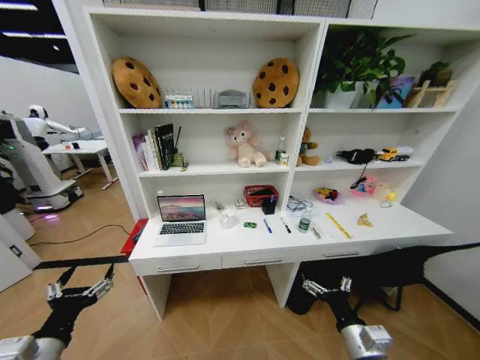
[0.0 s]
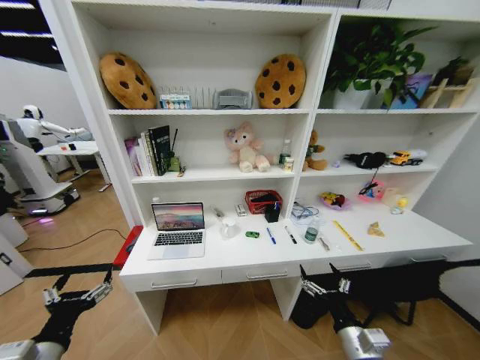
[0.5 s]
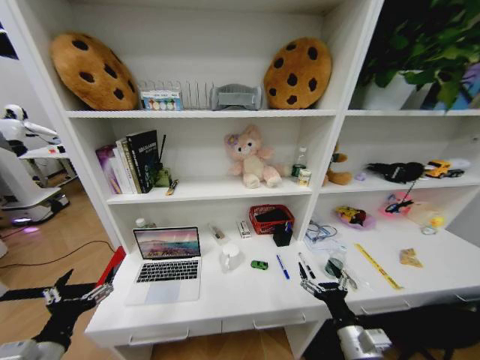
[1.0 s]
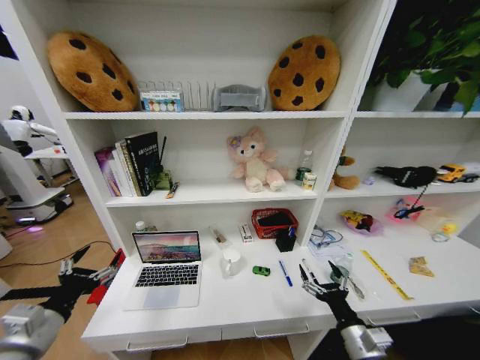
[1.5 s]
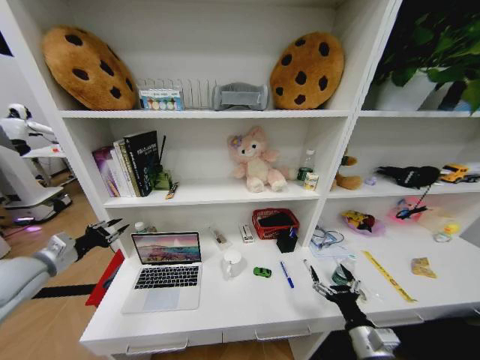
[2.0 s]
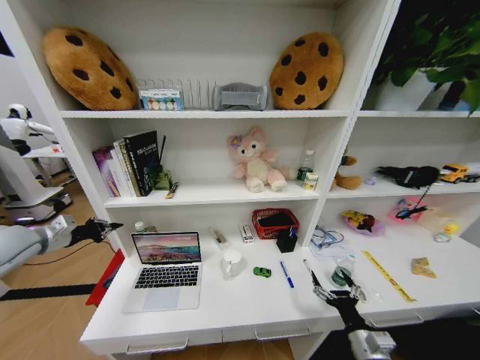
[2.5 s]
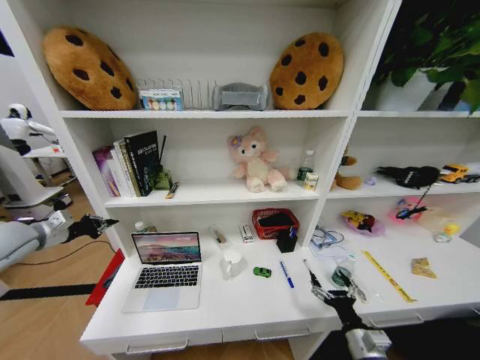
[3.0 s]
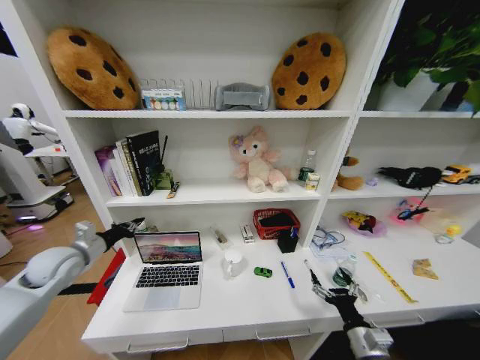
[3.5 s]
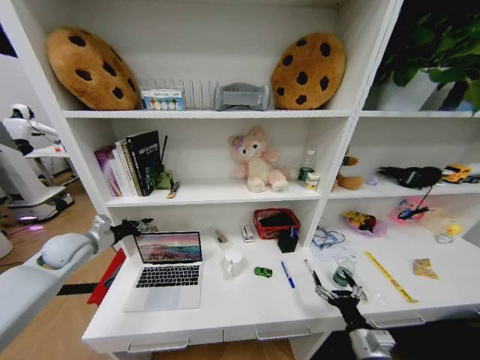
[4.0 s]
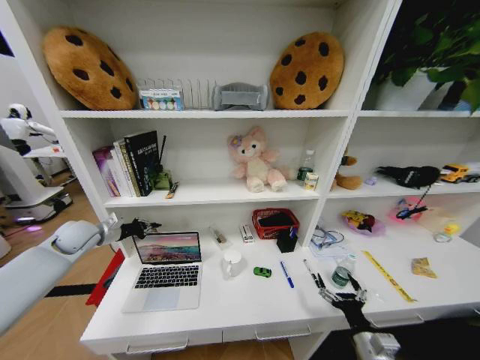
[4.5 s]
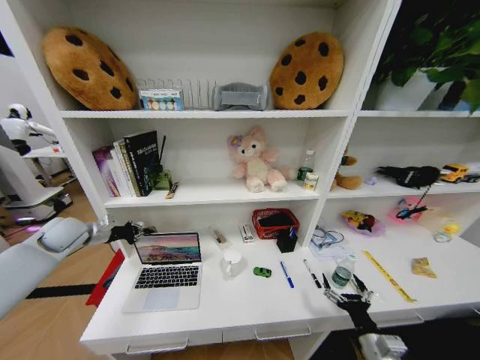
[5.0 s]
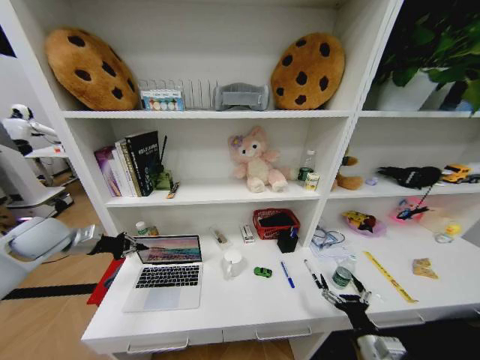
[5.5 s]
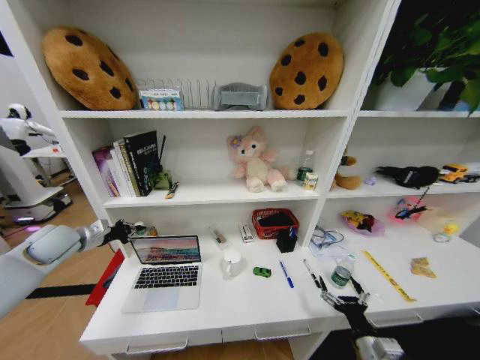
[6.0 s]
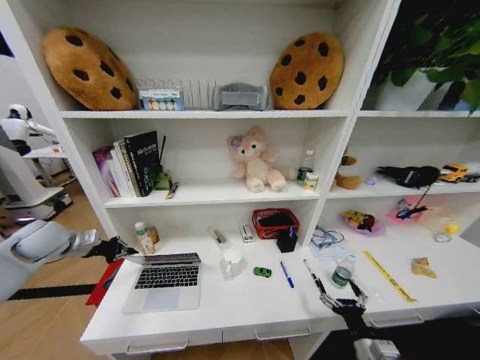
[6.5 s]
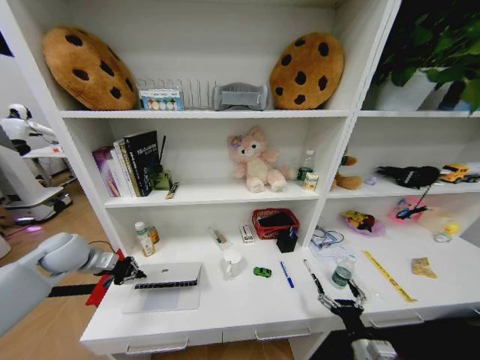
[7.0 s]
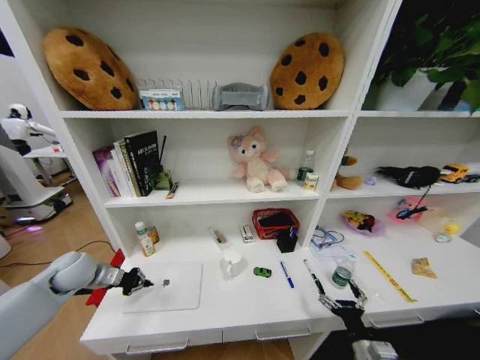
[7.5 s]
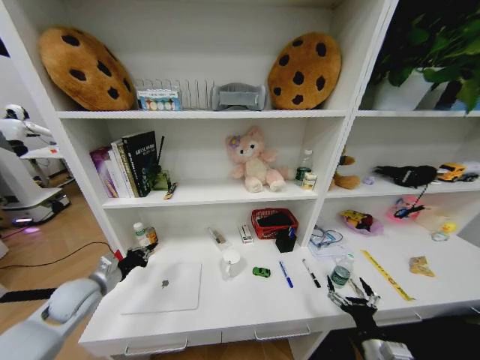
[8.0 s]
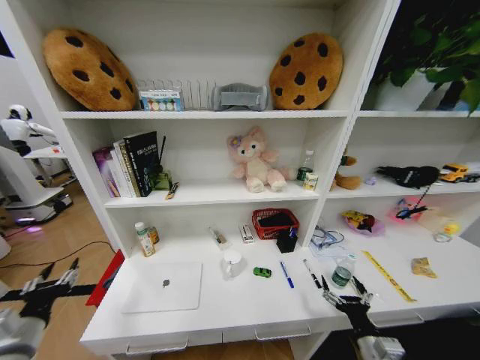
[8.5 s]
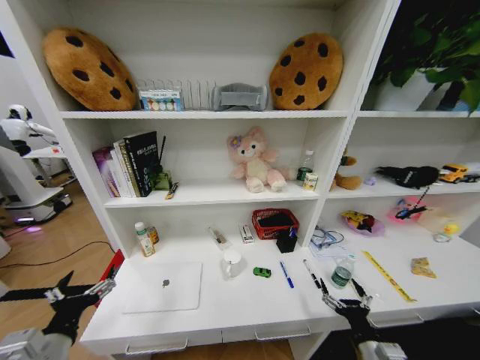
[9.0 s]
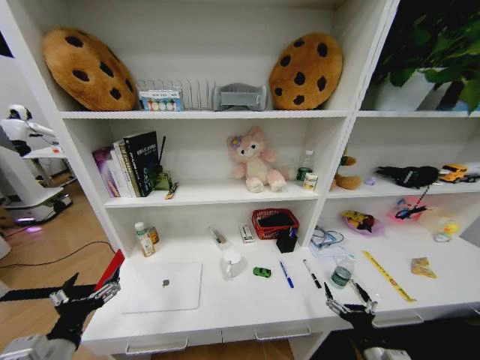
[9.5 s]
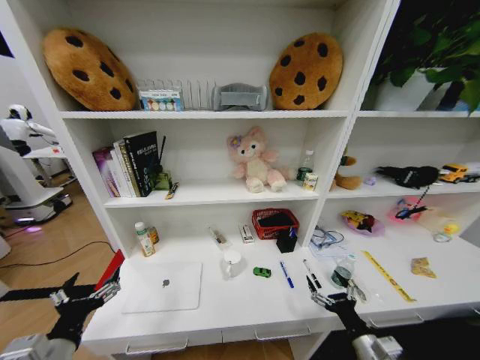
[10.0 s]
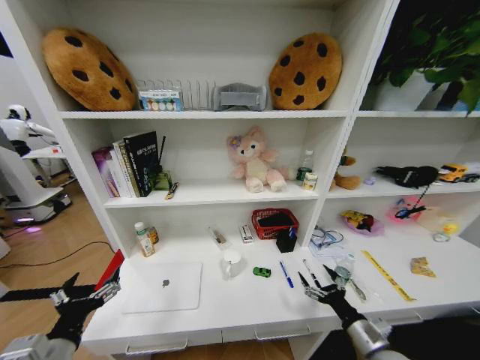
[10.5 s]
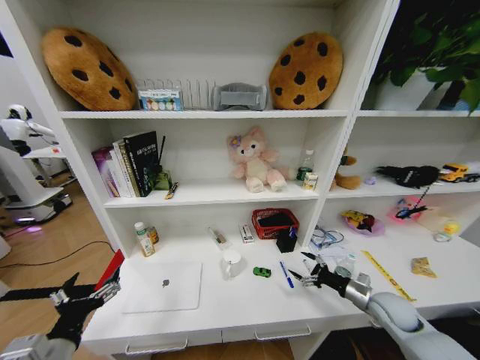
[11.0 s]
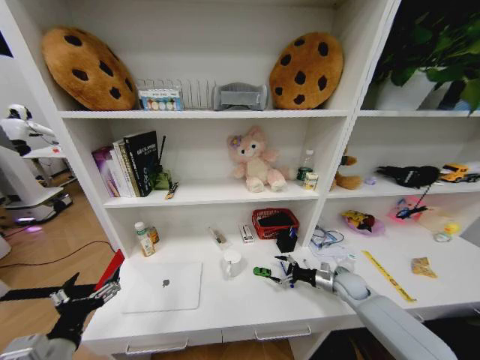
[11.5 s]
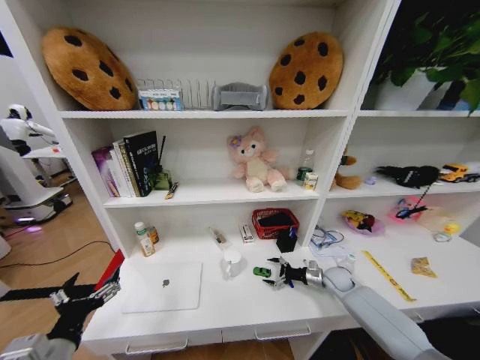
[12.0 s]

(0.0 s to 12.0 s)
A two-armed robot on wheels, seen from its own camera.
Task of the whole recording: Organize the objects on the table.
2.0 s - 4.0 s: The left gripper goes about 10 cm forward, and closes its fingers.
6.0 s - 8.0 s: The left gripper goes some 15 cm downward, backward and to the right.
8.0 s - 10.0 s: The left gripper goes roughly 20 cm backward and to the right, and opens.
10.0 s - 12.0 s: The right gripper shifts some 30 cm forward.

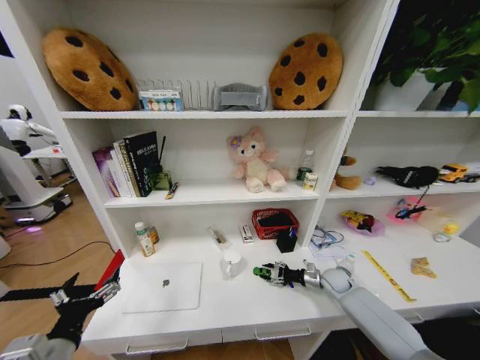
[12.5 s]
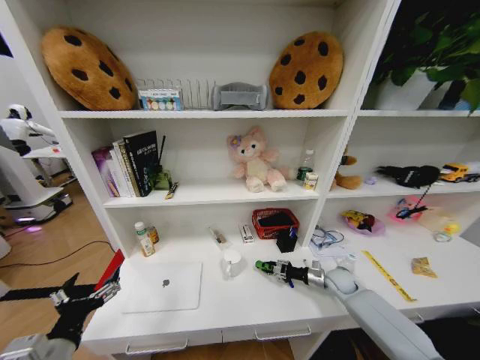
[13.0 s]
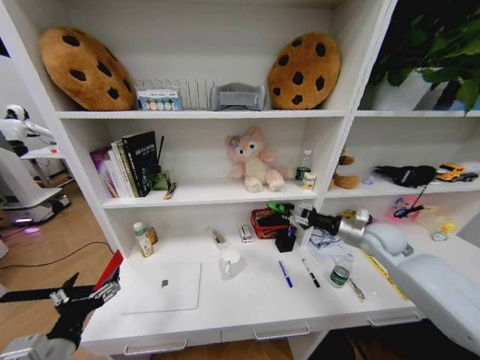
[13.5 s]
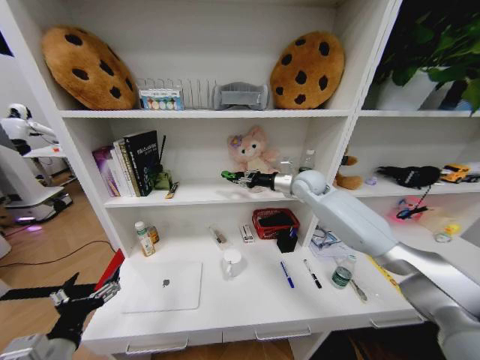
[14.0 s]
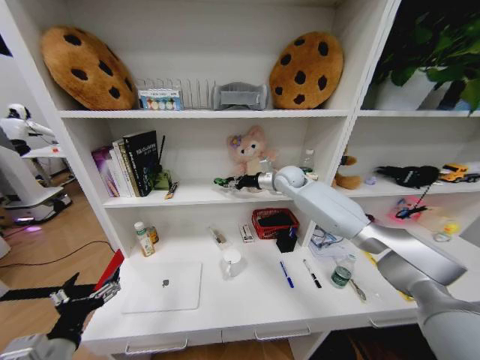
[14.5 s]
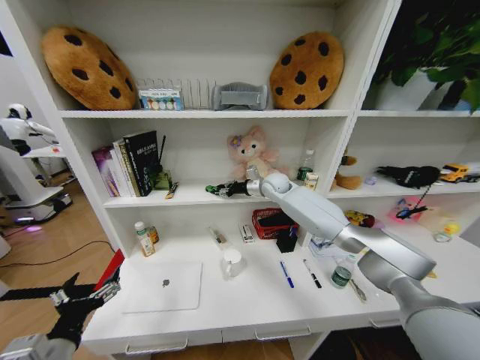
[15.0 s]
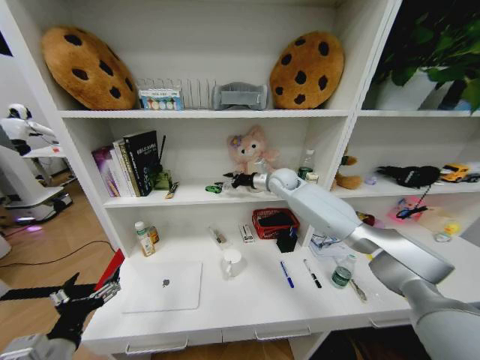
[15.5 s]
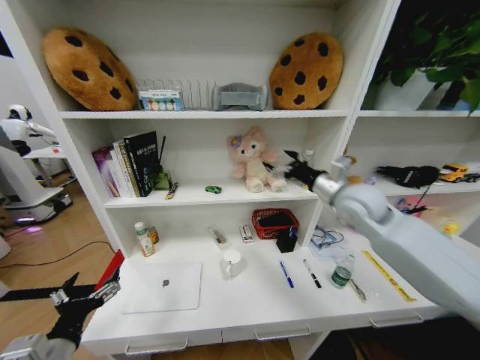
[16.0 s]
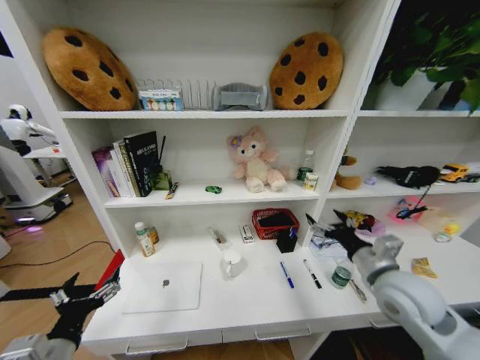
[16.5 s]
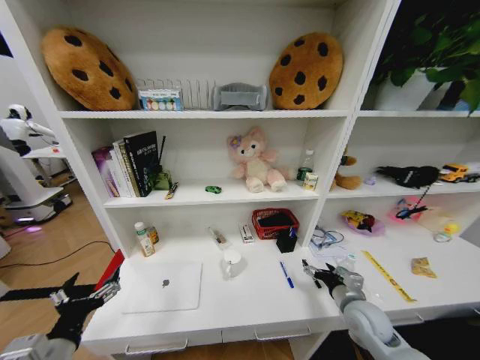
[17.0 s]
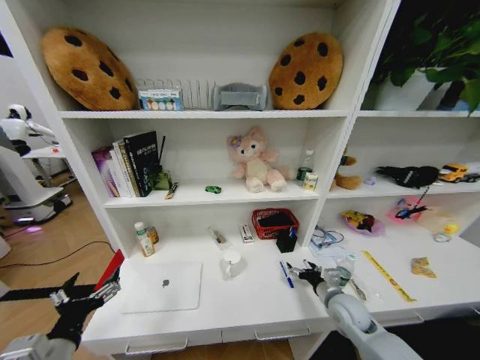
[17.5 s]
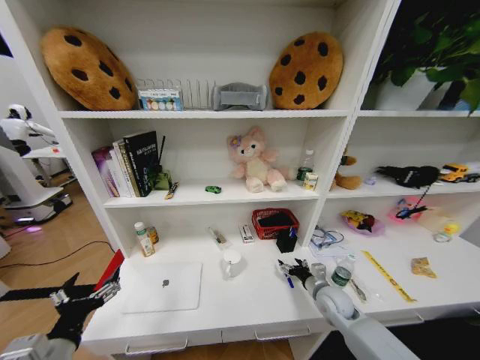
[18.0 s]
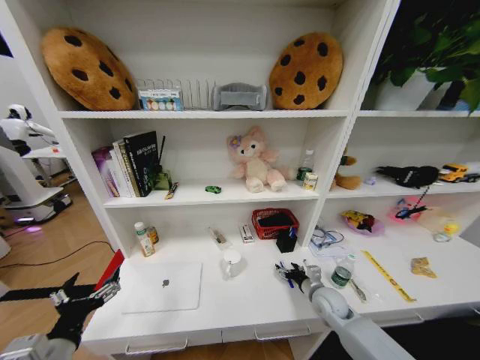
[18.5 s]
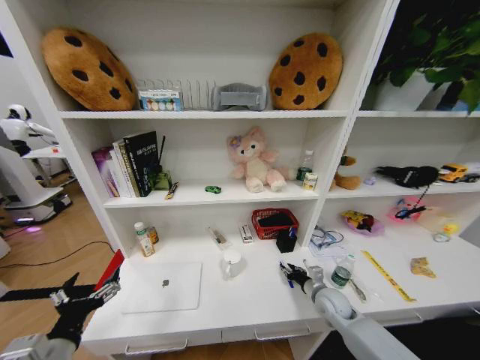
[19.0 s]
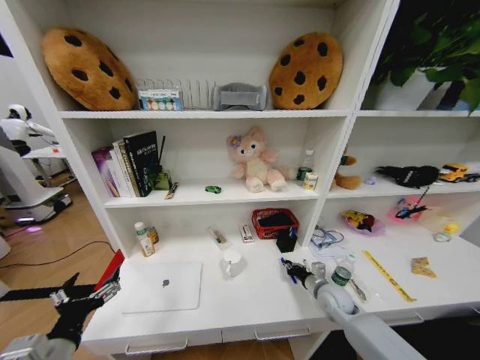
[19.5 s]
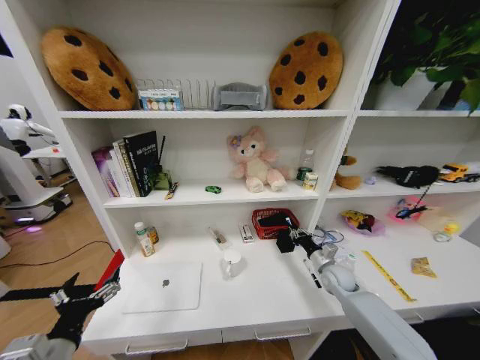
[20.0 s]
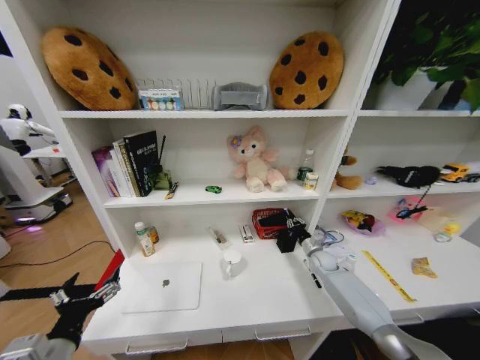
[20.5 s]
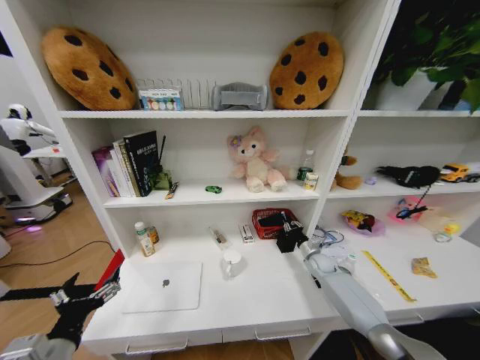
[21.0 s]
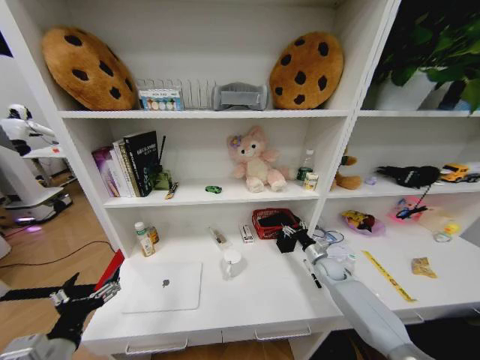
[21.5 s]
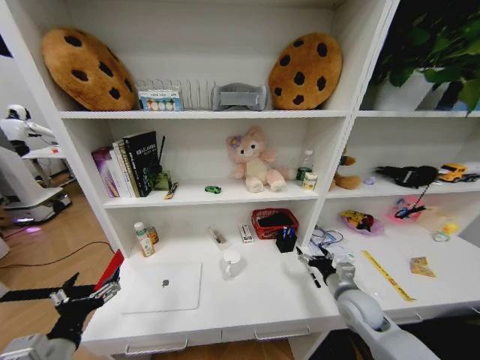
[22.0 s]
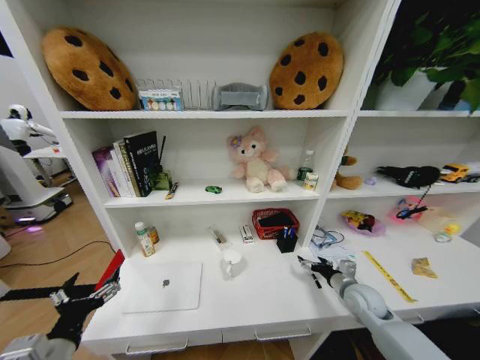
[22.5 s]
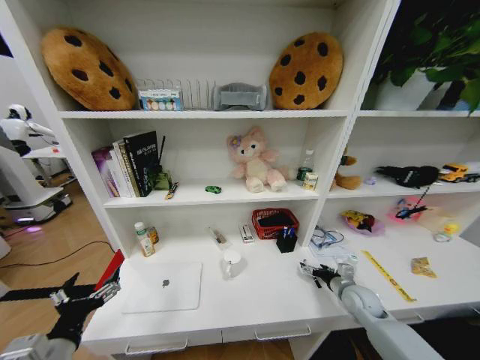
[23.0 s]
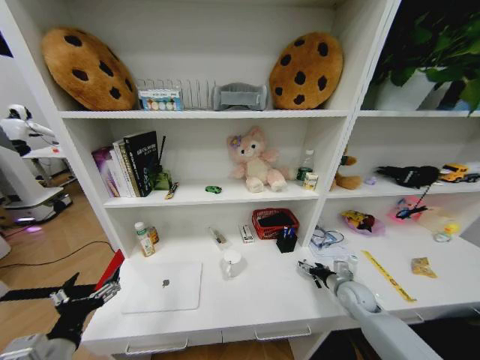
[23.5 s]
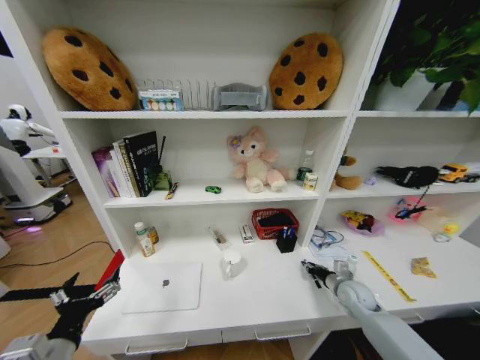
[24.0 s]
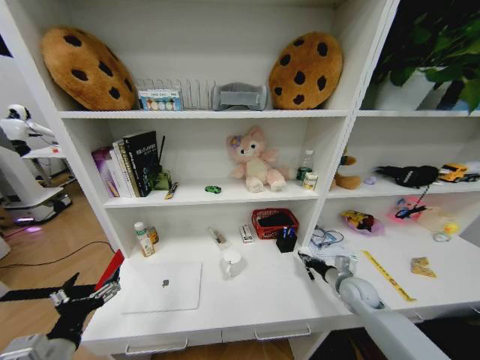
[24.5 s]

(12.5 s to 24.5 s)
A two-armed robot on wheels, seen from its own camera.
Task of the whole recording: Organize the objects on the table.
12.5 s - 14.5 s: The right gripper heads upward, to the left and forward, covering about 40 cm.
14.5 s - 16.5 s: The right gripper heads backward, covering roughly 35 cm, and opens.
16.5 s - 18.5 s: The right gripper travels downward by some 20 cm.
18.5 s - 20.5 s: The right gripper shifts roughly 15 cm forward and to the right, and closes.
20.5 s - 22.5 s: The right gripper heads backward, covering roughly 15 cm, and opens.
22.5 s - 24.5 s: The right gripper closes up.

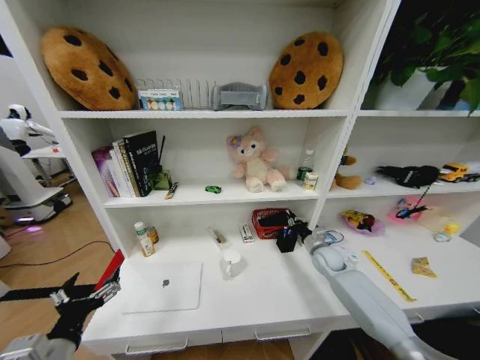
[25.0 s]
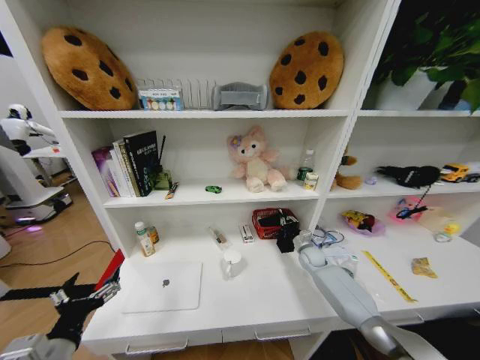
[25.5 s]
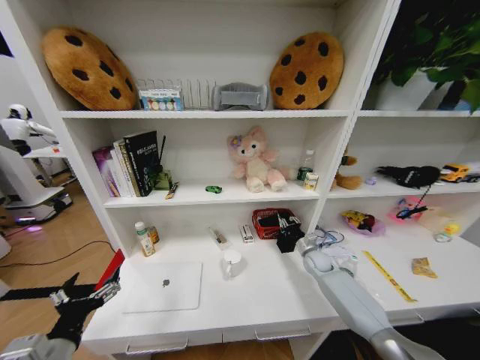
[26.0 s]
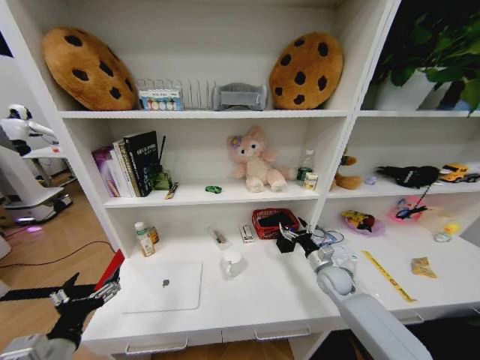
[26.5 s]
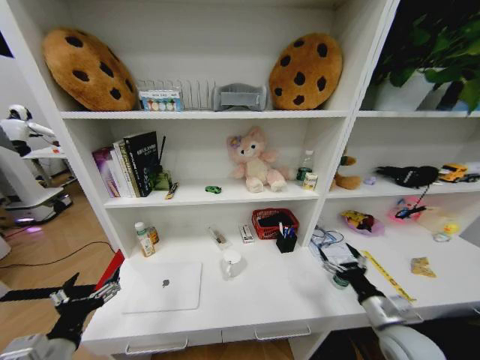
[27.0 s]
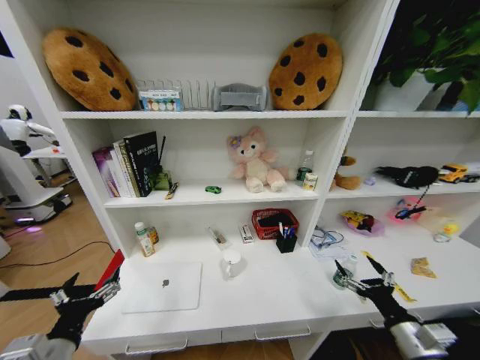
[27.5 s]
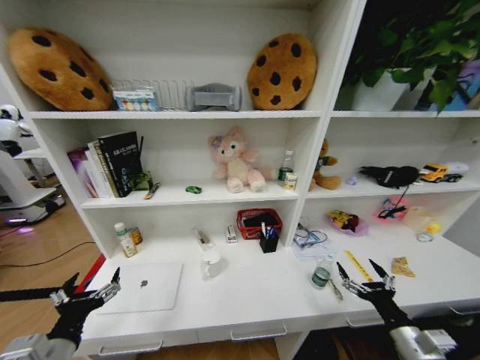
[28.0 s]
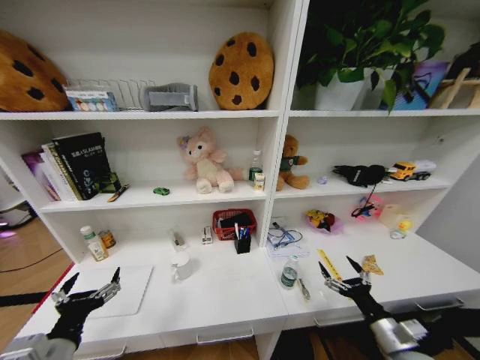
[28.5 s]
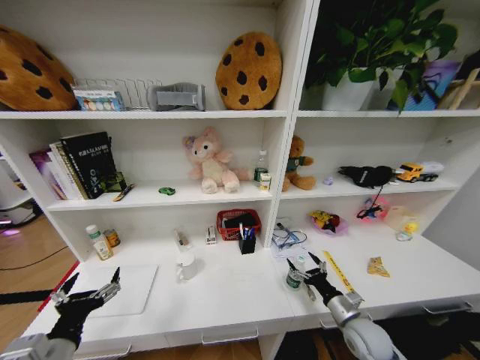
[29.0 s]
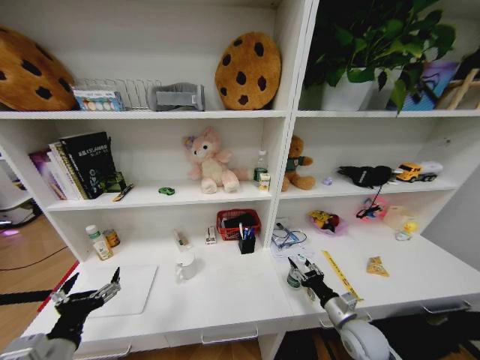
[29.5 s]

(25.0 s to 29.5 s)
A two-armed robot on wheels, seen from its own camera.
Task of the whole recording: Organize the objects on the table.
25.0 s - 27.0 s: The right gripper moves backward, some 25 cm, and opens up.
27.0 s - 29.5 s: The right gripper shifts some 5 cm downward, moves some 10 cm backward and comes back, and closes its fingers.
